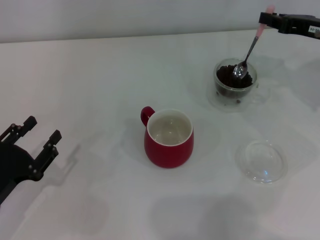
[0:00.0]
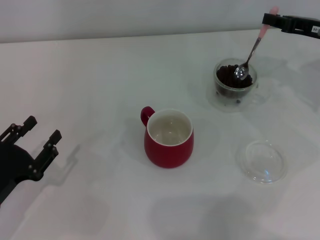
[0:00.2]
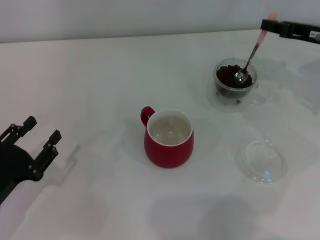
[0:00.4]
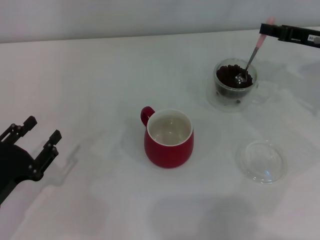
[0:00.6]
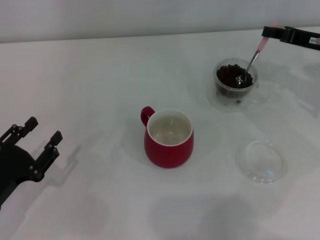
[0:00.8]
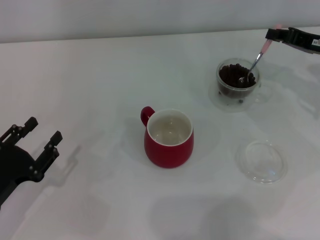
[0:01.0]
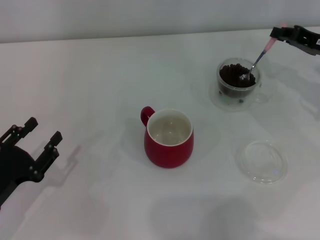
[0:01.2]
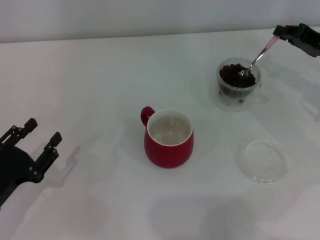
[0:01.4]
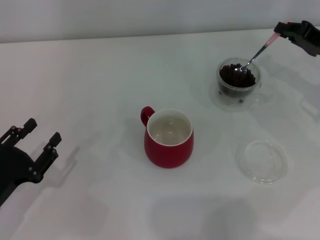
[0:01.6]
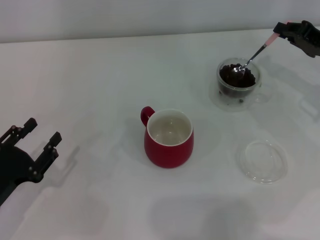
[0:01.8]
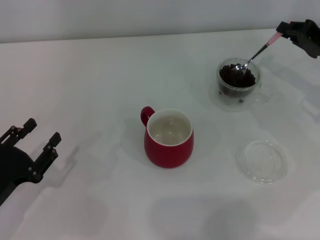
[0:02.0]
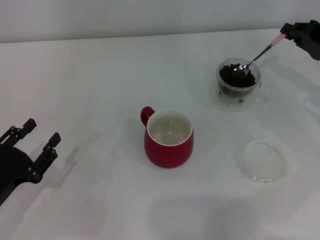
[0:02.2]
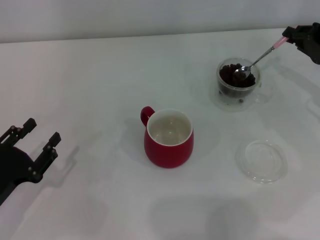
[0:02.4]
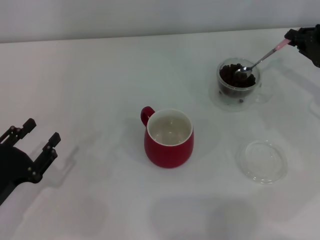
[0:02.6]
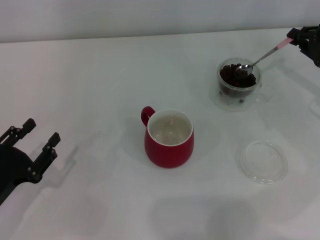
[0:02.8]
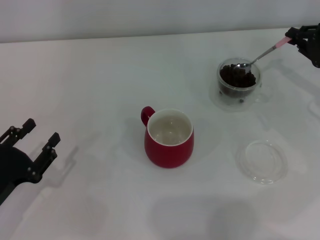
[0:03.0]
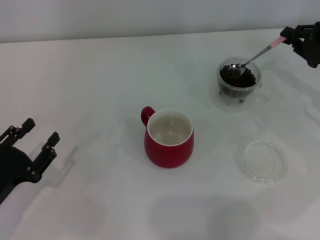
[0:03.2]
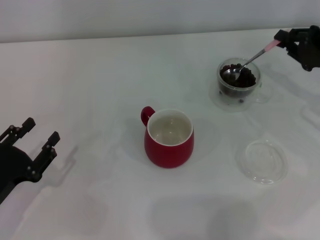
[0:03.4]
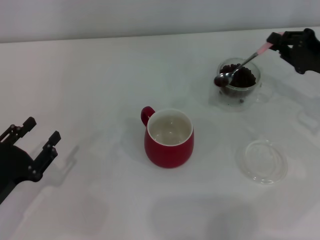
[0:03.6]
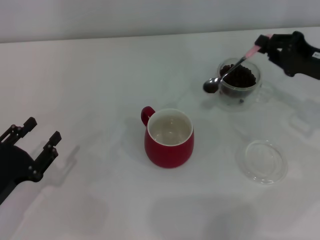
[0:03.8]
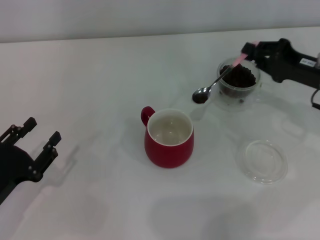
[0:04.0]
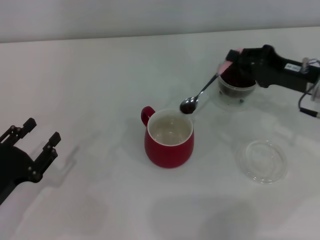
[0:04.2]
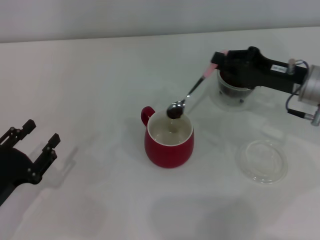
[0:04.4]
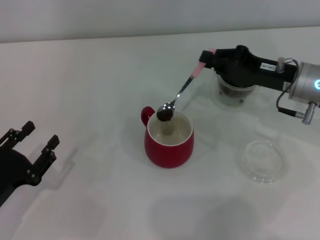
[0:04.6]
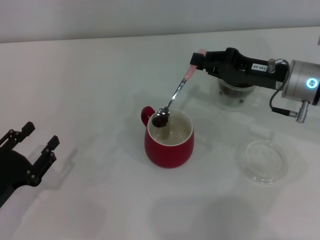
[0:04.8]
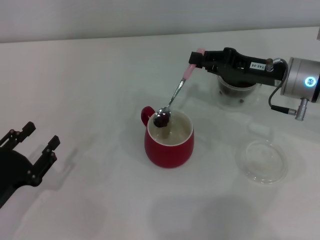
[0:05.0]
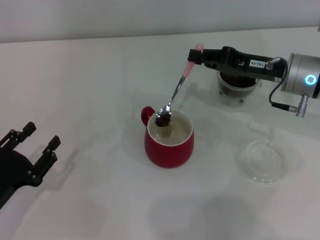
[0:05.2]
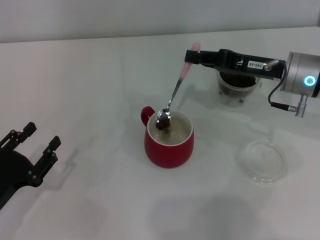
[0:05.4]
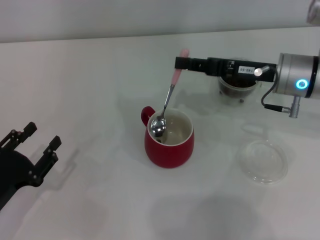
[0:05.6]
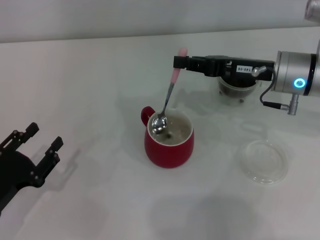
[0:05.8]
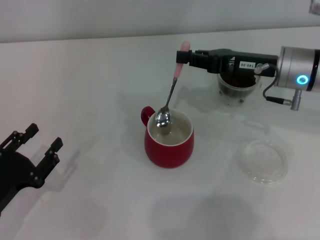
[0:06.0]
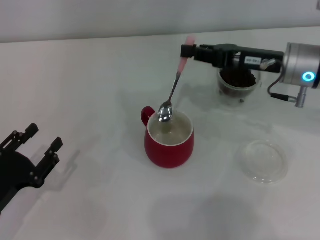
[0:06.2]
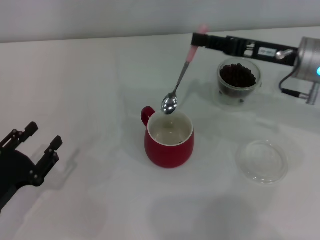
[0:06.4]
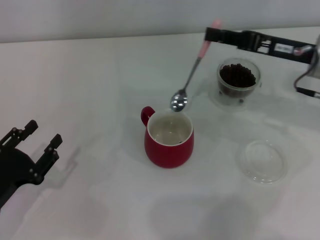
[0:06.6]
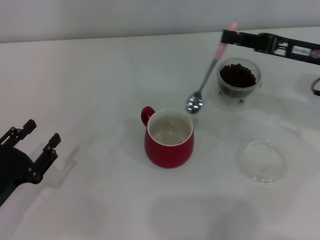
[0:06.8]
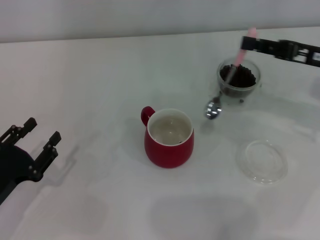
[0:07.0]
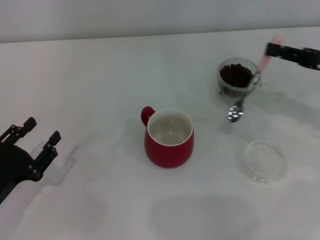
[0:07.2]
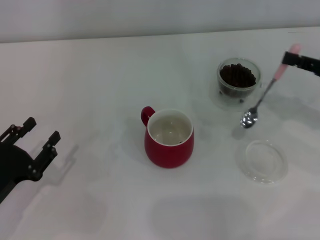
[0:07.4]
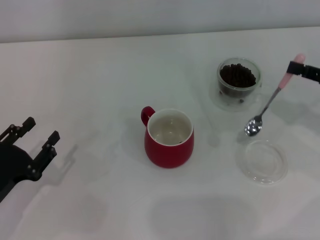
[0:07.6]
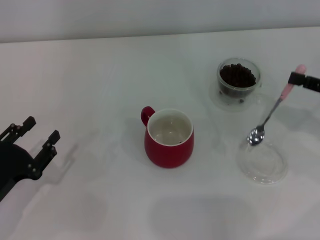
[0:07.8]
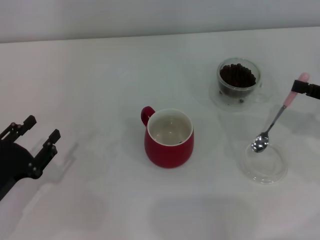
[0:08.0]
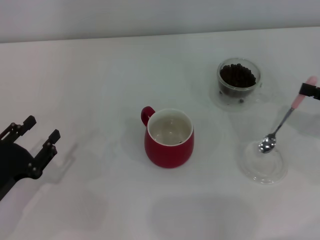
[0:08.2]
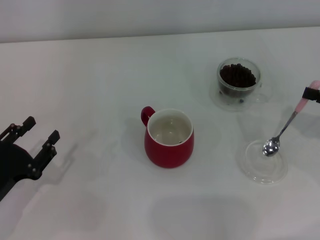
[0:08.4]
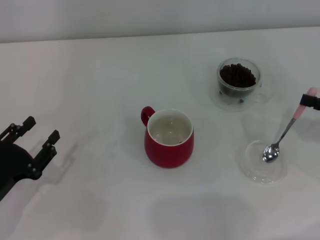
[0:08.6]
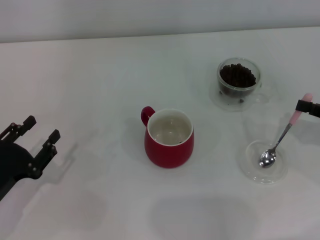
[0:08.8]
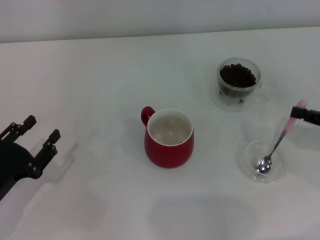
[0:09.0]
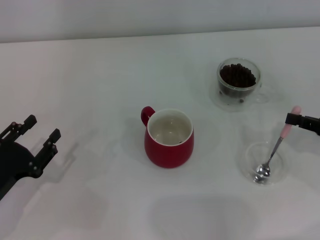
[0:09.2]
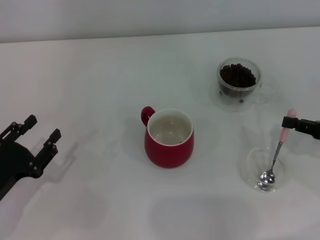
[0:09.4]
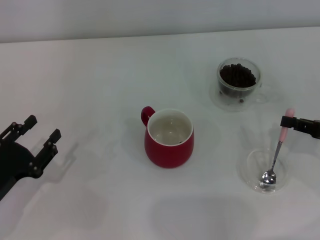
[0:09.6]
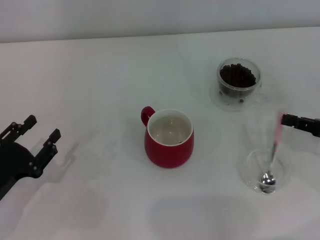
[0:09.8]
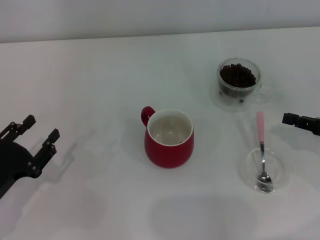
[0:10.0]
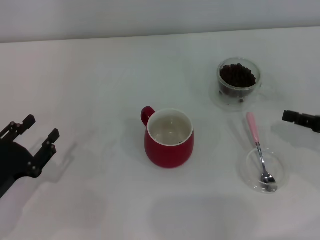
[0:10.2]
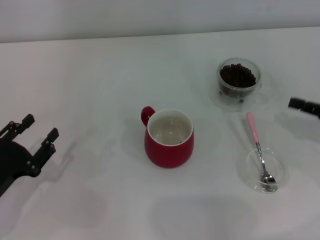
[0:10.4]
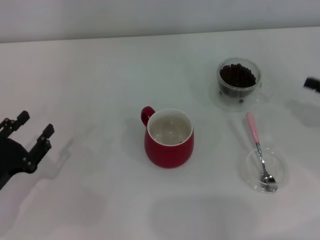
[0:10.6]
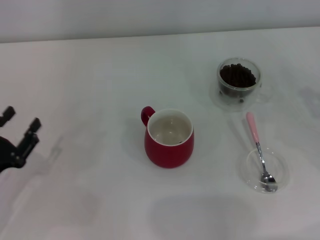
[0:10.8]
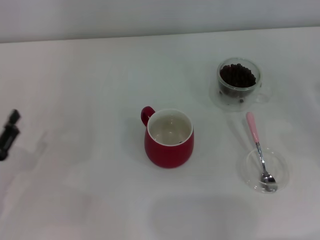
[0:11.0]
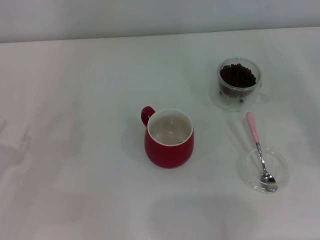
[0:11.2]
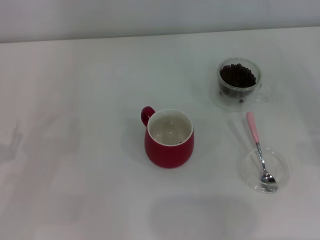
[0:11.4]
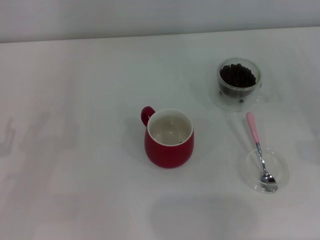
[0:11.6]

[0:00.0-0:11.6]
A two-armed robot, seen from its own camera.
Task of the whole recording: Use a pink spoon to take out the coffee beans from the glass and pour them into the red cup.
Step, 0:00.0 to 0:05.6: Scoop a spoonful of beans into the cup with the right gripper.
Step, 0:05.8 to 0:09.6: Place the spoon back in its original place with the right gripper.
0:02.8 to 0:04.4: The right gripper moves to the left, roughly 10 cm.
0:04.4 to 0:05.8: The right gripper changes place by approximately 5 cm.
0:05.8 to 0:07.2: The right gripper heads to the right and backward, covering approximately 15 cm.
0:07.2 to 0:08.8: The right gripper heads backward and downward, covering some 10 cm.
0:08.8 to 0:10.2: The grippers make only small movements.
0:10.2 to 0:11.6: The right gripper shifts some 5 cm to the right.
